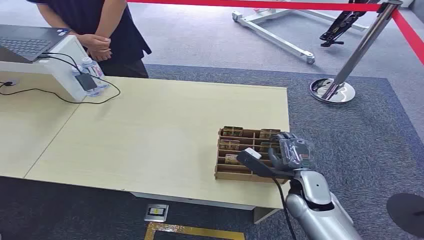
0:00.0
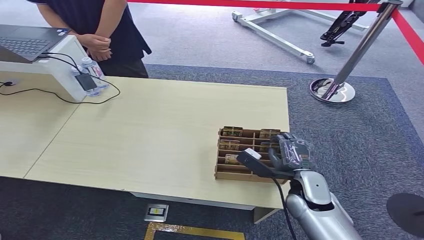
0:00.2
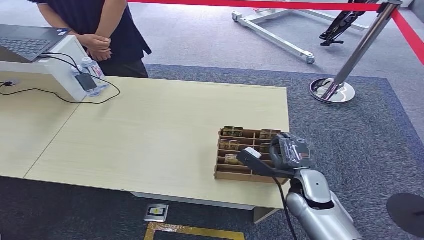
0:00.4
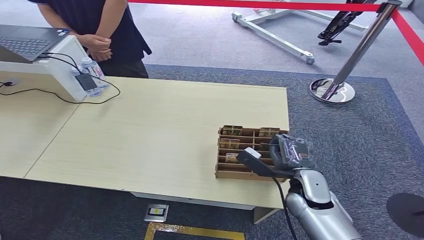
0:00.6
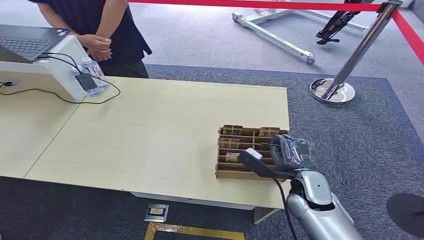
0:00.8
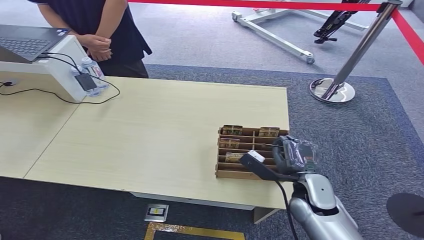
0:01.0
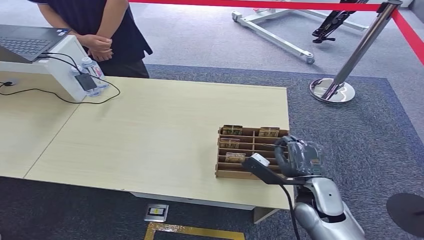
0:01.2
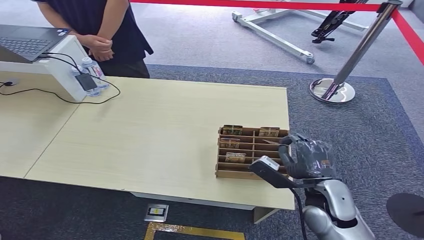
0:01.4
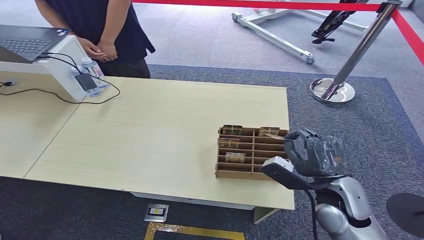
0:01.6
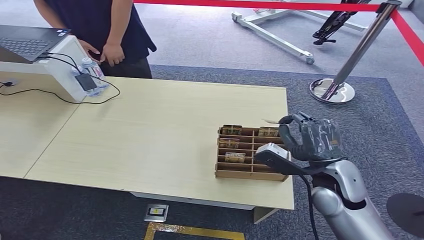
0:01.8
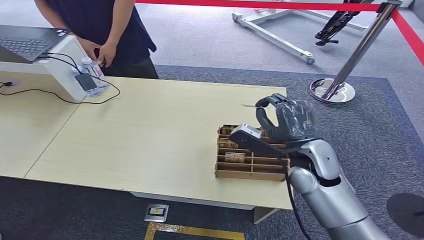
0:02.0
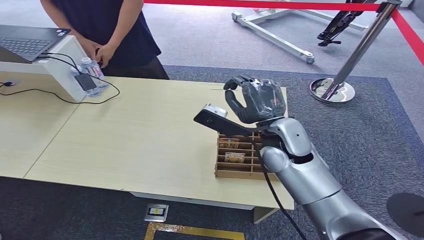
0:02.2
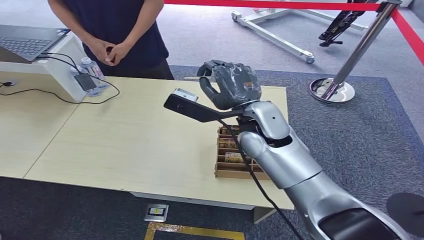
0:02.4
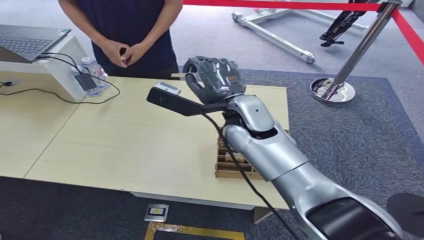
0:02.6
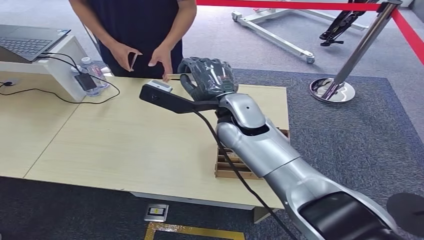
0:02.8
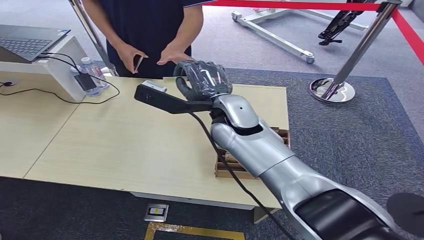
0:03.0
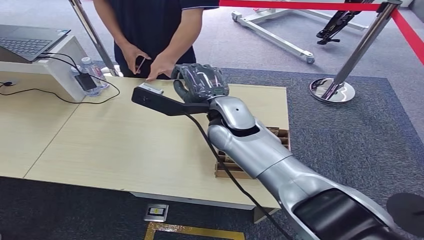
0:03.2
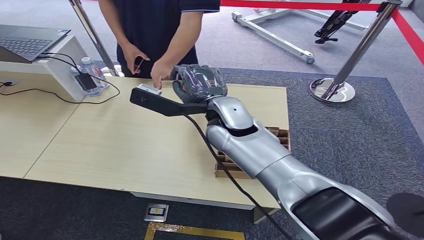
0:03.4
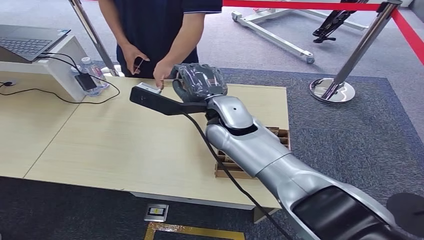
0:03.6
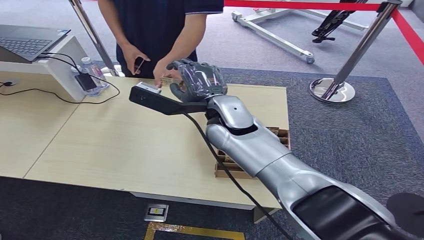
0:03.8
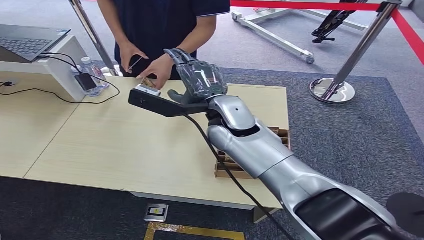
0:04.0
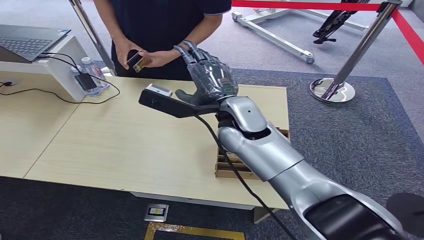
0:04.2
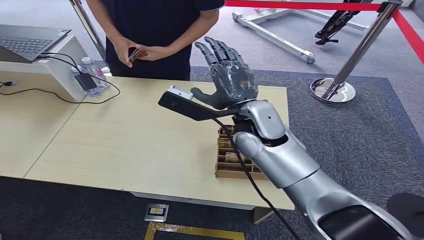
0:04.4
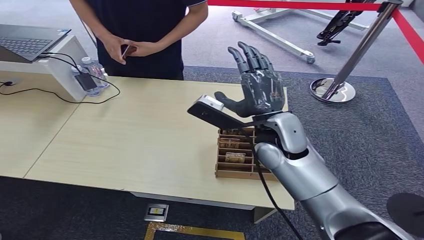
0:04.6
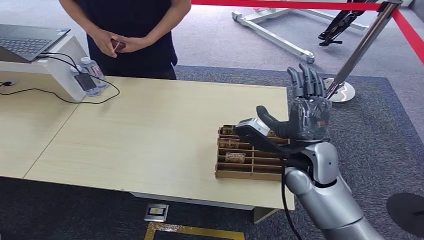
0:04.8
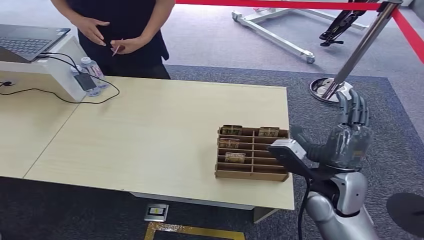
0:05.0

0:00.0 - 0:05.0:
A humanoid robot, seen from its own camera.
Step, 0:00.0 - 0:01.2: Pick up the room card from the card holder.
Step, 0:01.4 - 0:04.8: Hand the room card to the target.
